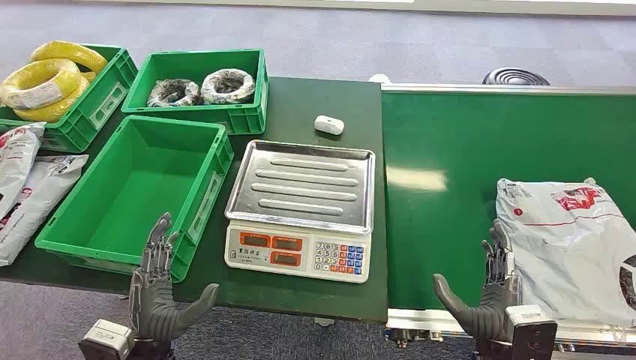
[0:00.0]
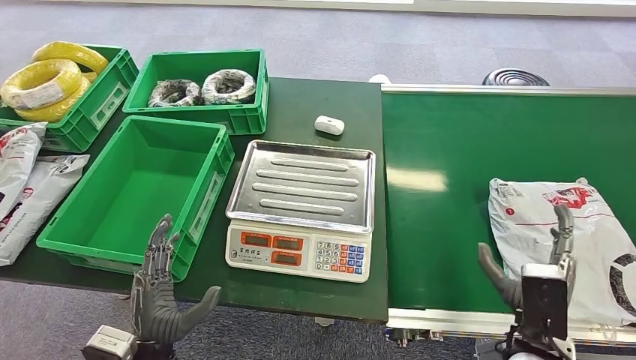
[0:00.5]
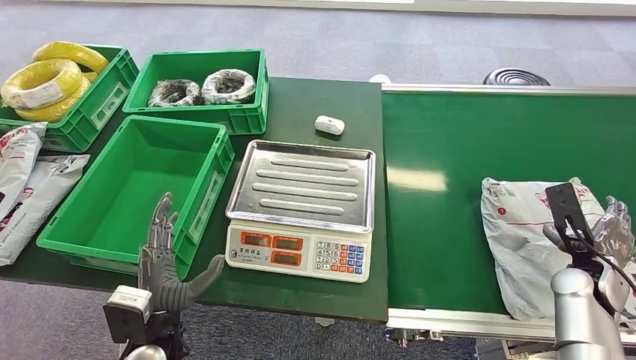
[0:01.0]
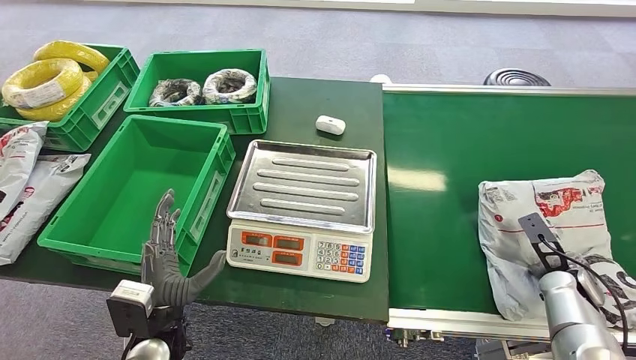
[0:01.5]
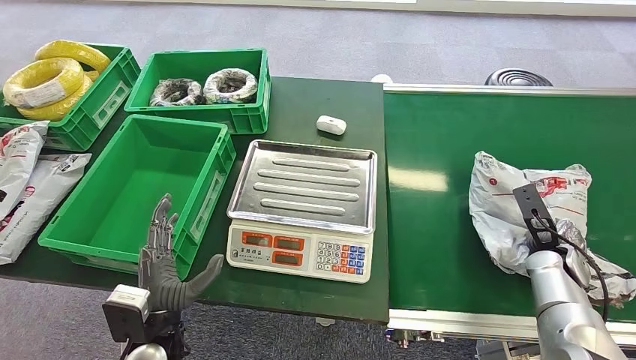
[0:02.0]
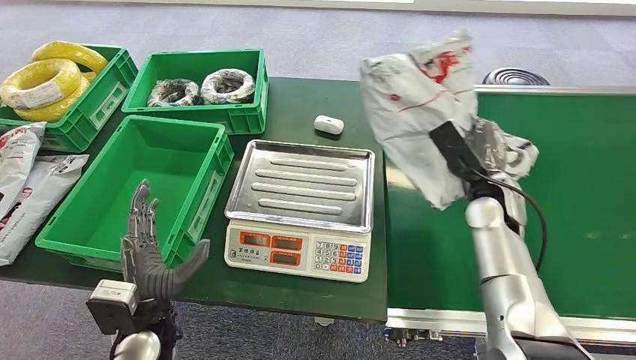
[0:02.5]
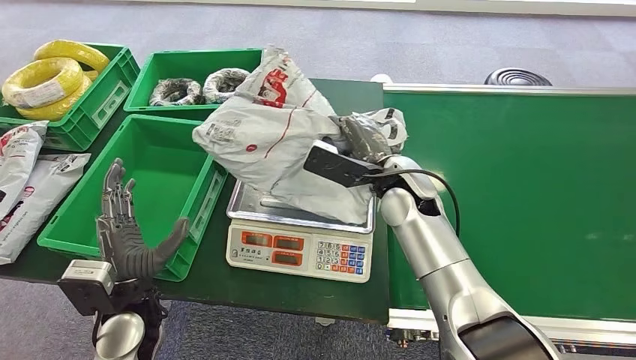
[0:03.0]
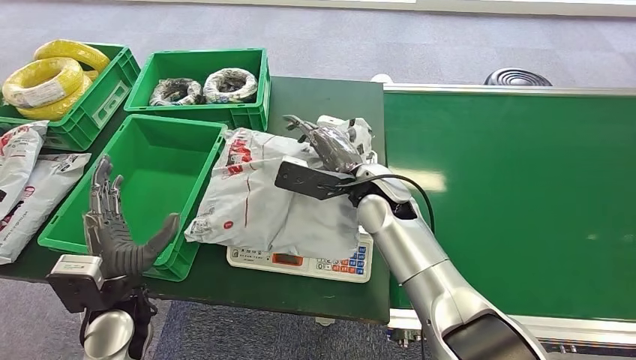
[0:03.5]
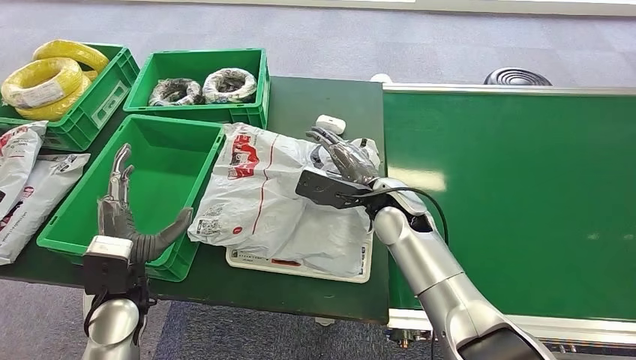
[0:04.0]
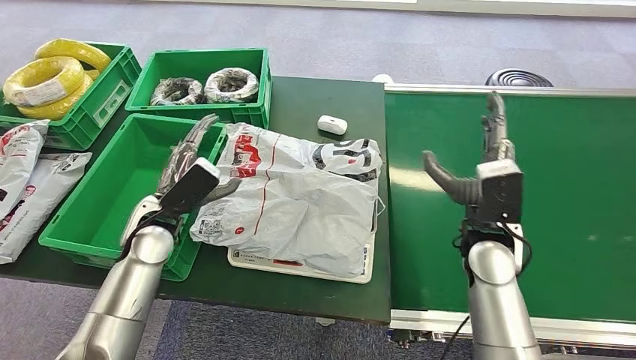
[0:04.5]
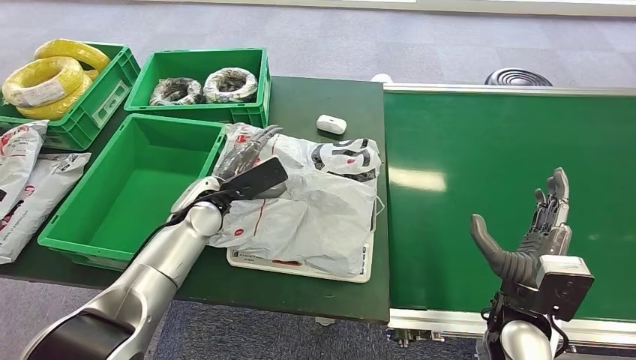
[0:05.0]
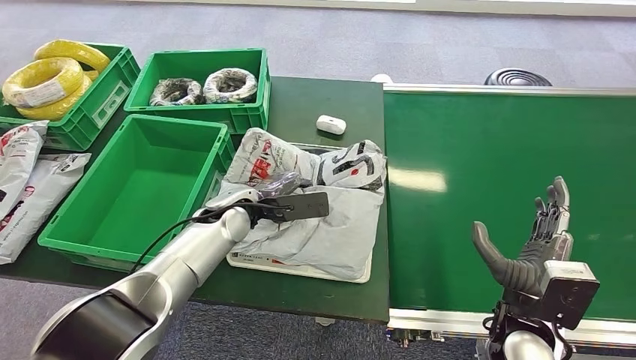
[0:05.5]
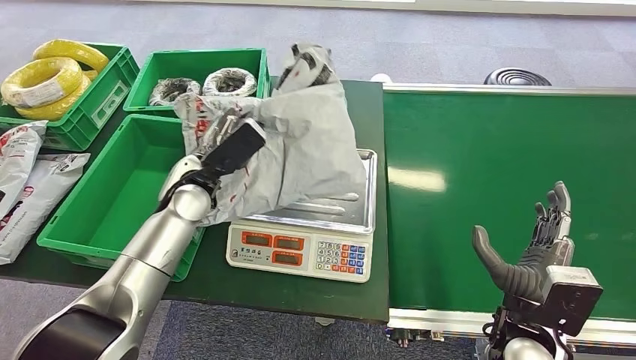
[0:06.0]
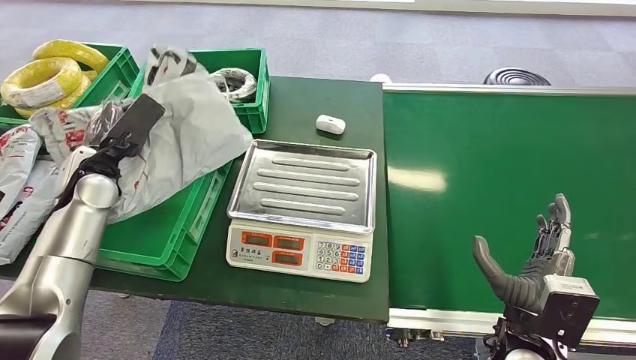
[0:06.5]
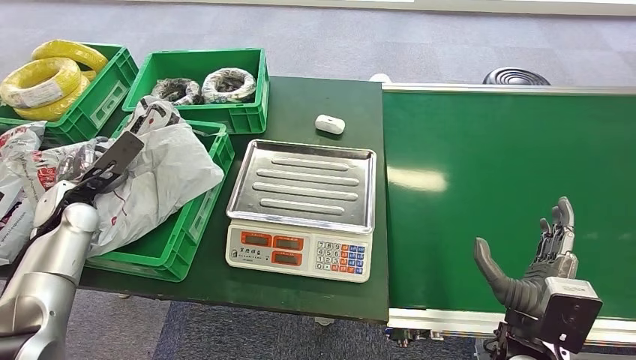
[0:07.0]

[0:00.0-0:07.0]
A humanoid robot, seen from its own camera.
Step, 0:00.0 to 0:02.0: Pick up the package from the conveyor belt.
Step, 0:03.0 to 0:03.5: Place the package onto the inbound machine.
Step, 0:04.0 to 0:06.0: Pick up the package from the inbound machine.
Step, 0:06.5 to 0:07.0: Place the package into the parcel locker.
